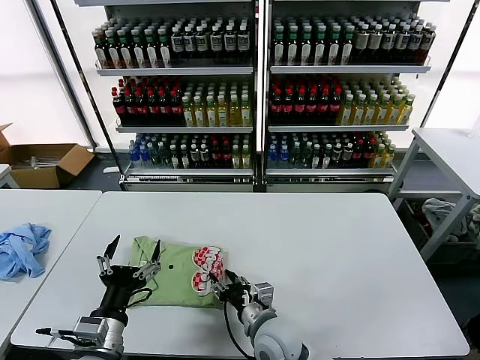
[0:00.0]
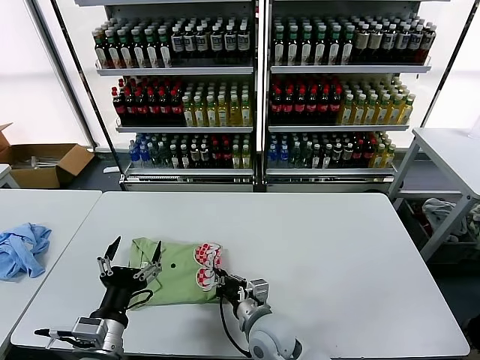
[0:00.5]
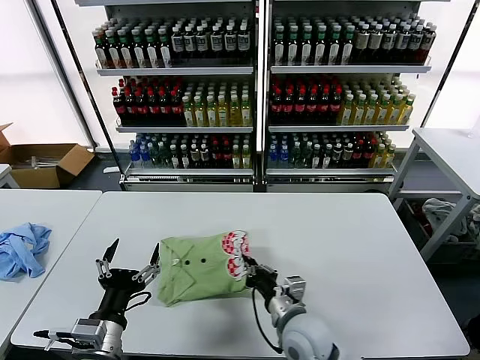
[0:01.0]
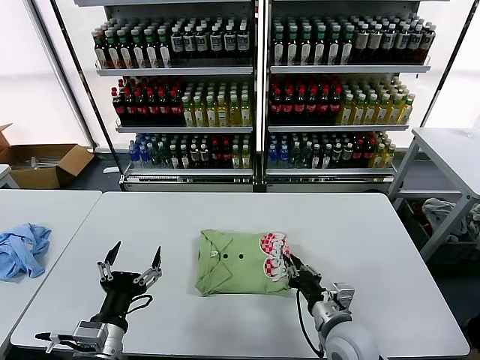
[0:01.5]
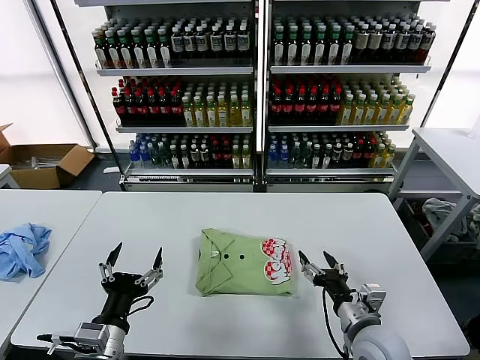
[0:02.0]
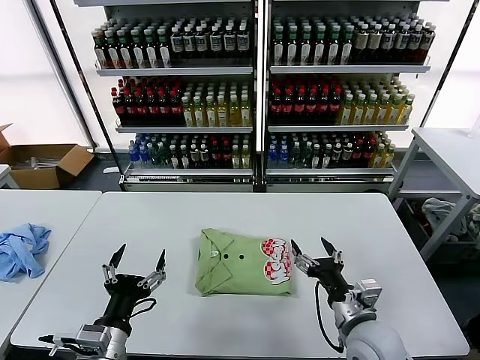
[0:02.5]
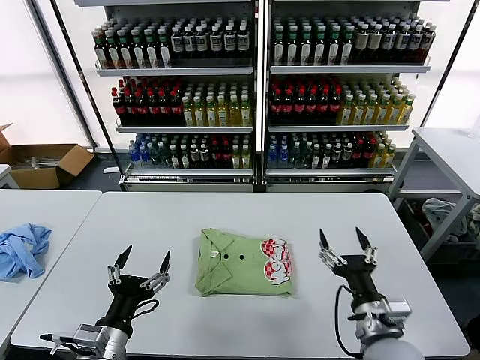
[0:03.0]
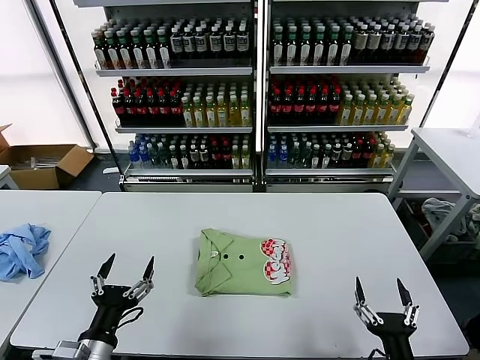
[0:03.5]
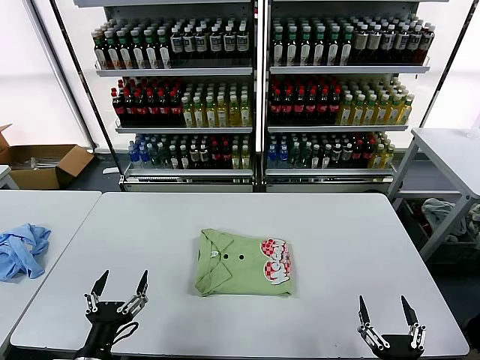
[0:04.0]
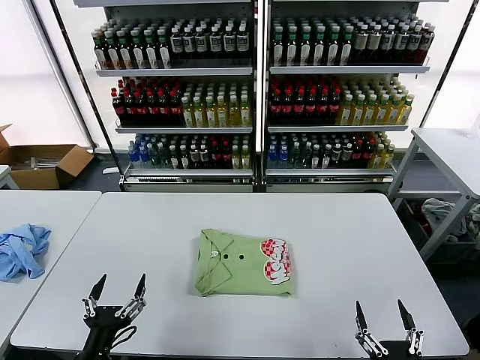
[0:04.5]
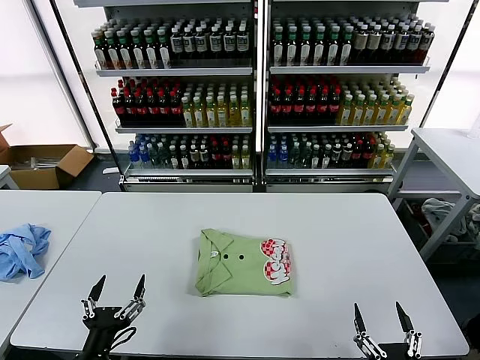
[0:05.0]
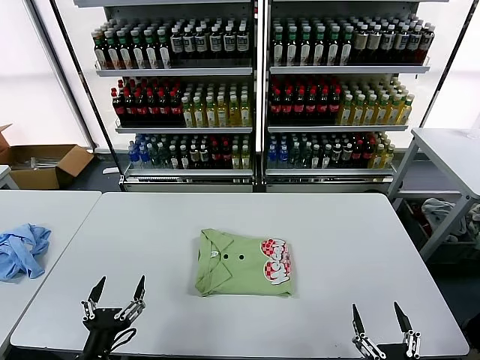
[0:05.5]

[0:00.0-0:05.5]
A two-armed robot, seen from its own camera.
Task of the whole recording: fold and organize the clothes.
0:00.0 to 0:02.0: The right gripper travels to the right by some 20 cm, and closes and opens again.
0:02.0 to 0:03.5: The right gripper moves backward, about 15 cm.
0:03.5 to 0:05.5: The right gripper heads backward, covering roughly 5 cm.

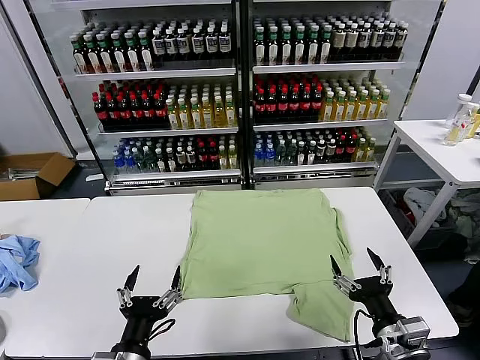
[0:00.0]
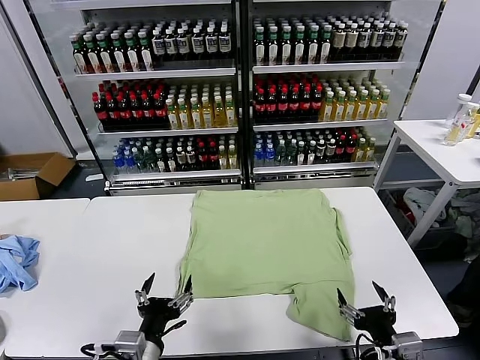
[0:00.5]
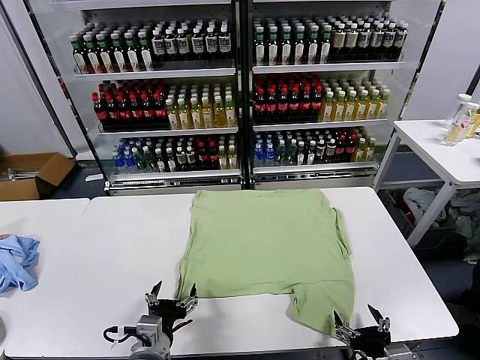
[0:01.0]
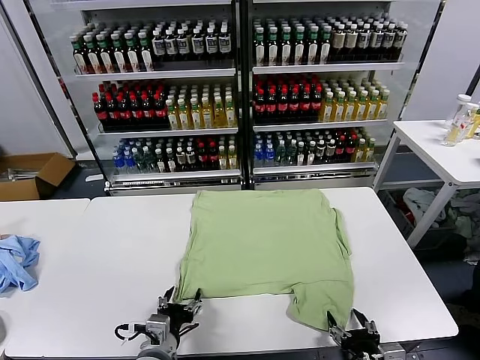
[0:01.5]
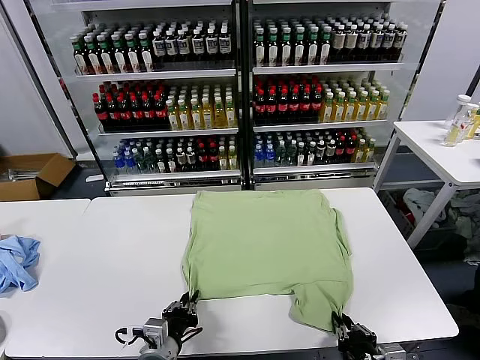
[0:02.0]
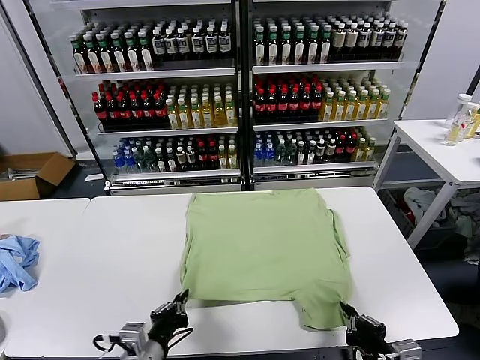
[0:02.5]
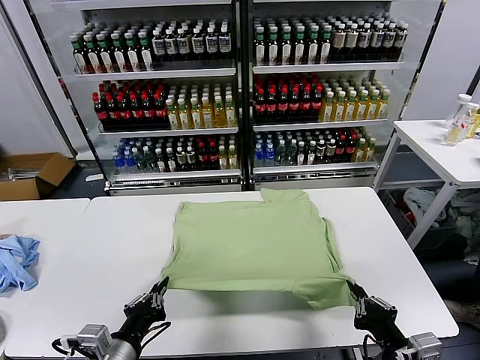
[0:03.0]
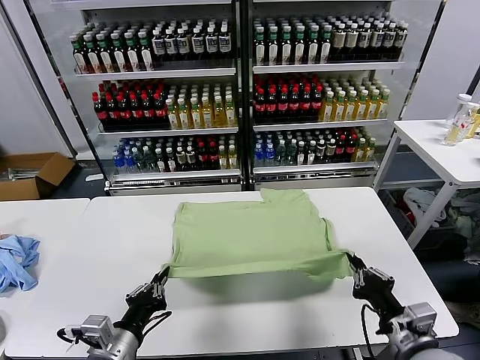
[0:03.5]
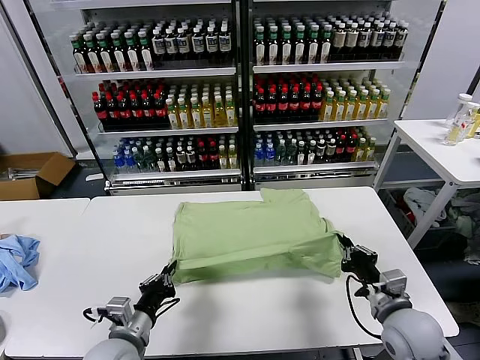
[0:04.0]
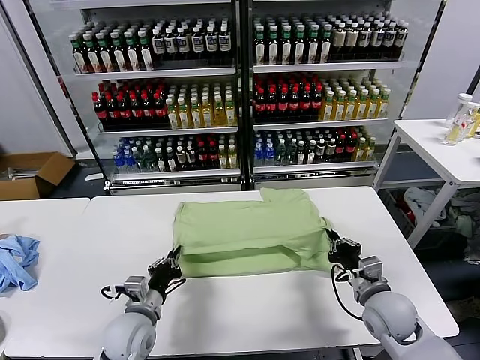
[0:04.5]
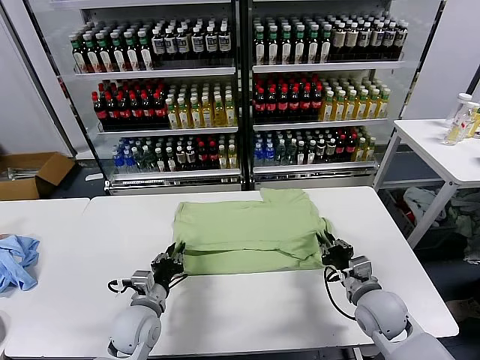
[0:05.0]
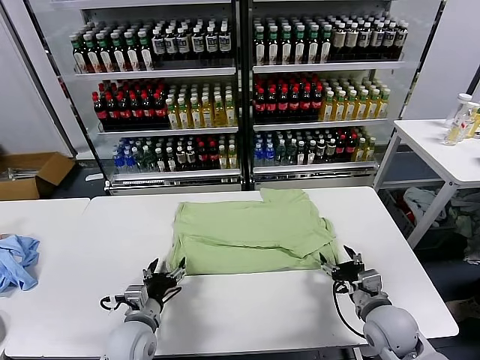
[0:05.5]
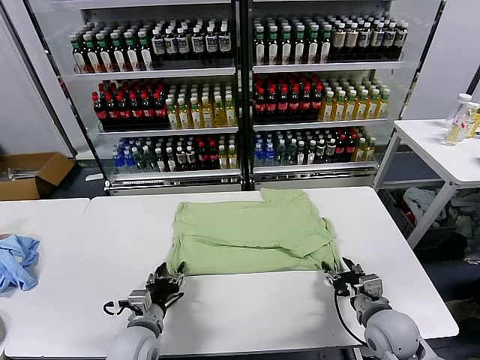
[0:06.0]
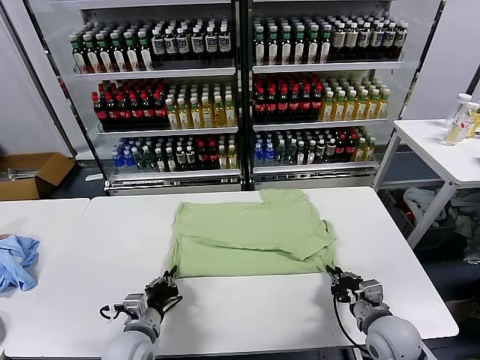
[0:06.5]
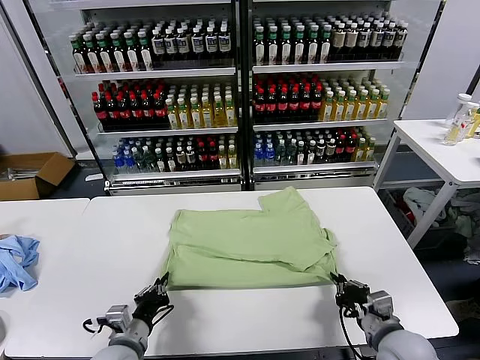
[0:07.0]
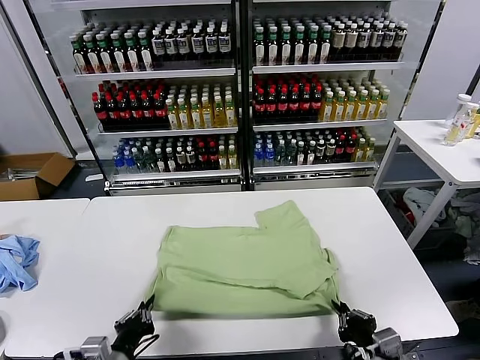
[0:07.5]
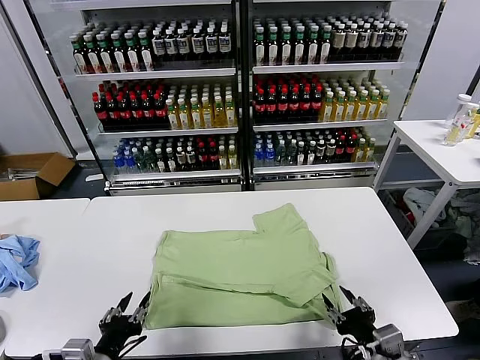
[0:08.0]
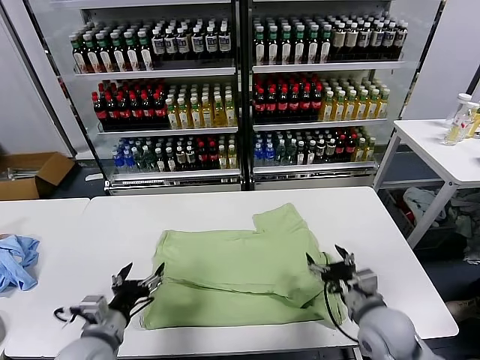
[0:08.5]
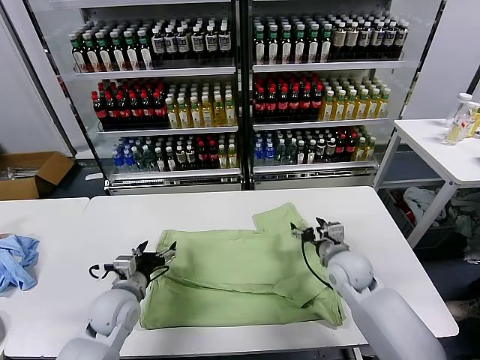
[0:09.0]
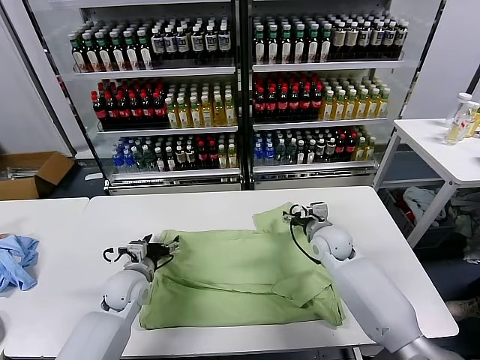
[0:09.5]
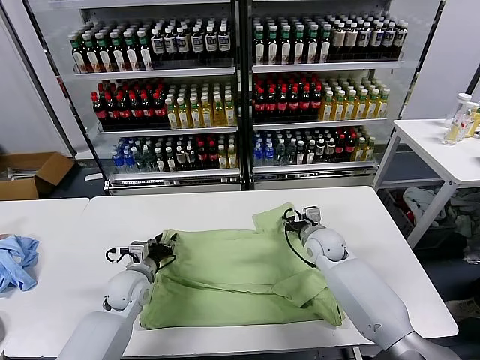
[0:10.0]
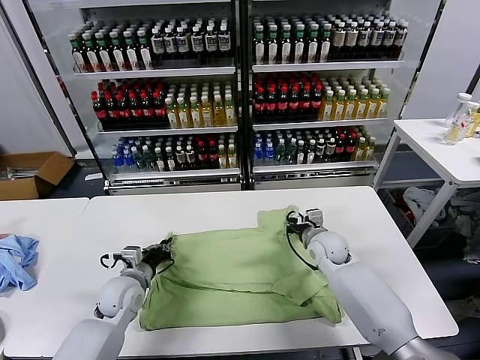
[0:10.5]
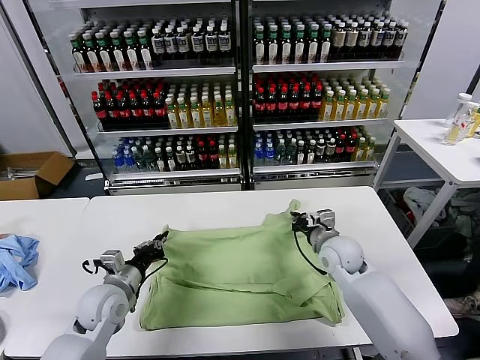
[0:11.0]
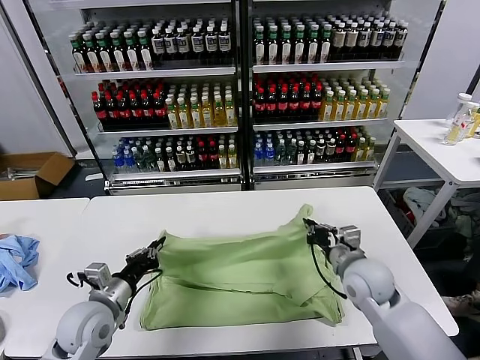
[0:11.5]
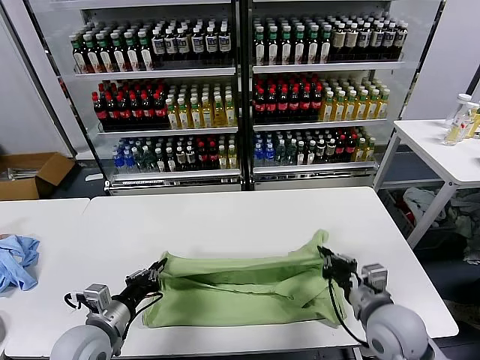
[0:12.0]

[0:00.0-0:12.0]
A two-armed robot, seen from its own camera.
Task of the whole recording: fold and organize the clothes.
Step, 0:00.0 to 0:02.0: use both grippers simultaneously to clamp the lower edge of the clothing fabric.
Step, 0:02.5 to 0:05.0: use both grippers to drag the lower edge of the fabric forward and fold it over the upper edge.
Step, 0:05.5 to 0:07.5: Drag the clothes downward with both gripper.
Step, 0:08.0 to 0:10.5: use both grippers simultaneously to clamp the upper edge of the clothing fabric.
0:02.0 to 0:04.0: The right gripper moves forward, roughly 15 cm, while the left gripper shifts roughly 5 cm to the left, and travels upward and back again, roughly 10 cm each way.
0:04.0 to 0:06.0: The right gripper opens its fingers. The left gripper travels downward by roughly 5 cm, and opens.
0:06.0 to 0:08.0: Both grippers move backward and upward, roughly 15 cm. The left gripper closes, then reopens; the right gripper closes, then reopens.
0:08.0 to 0:10.0: The two grippers go about 30 cm forward. The left gripper opens, then closes once more.
0:10.0 to 0:12.0: The left gripper travels backward and upward by approximately 15 cm, and closes up; the right gripper moves backward, approximately 25 cm, and closes up.

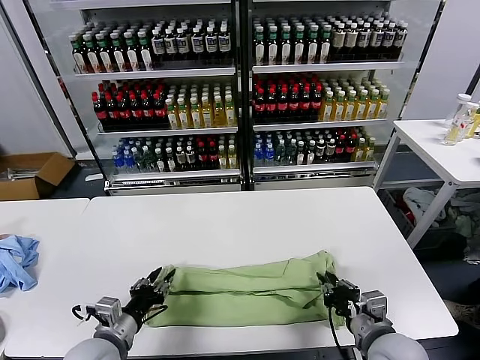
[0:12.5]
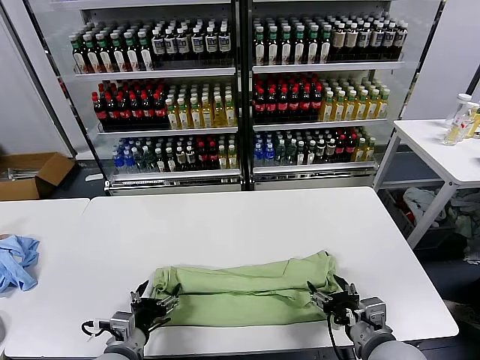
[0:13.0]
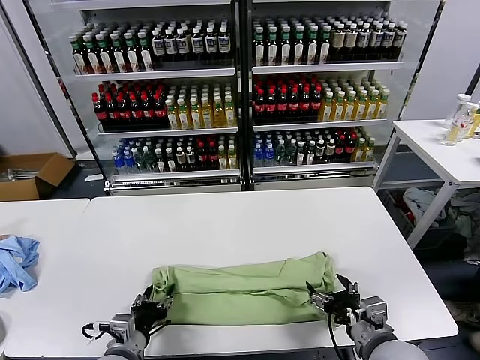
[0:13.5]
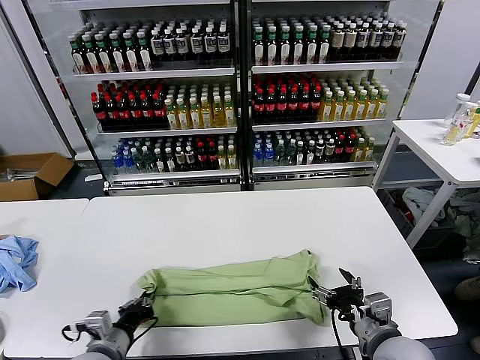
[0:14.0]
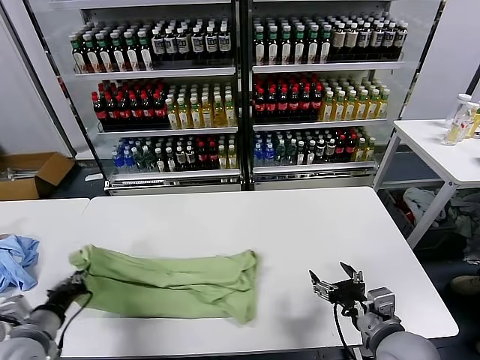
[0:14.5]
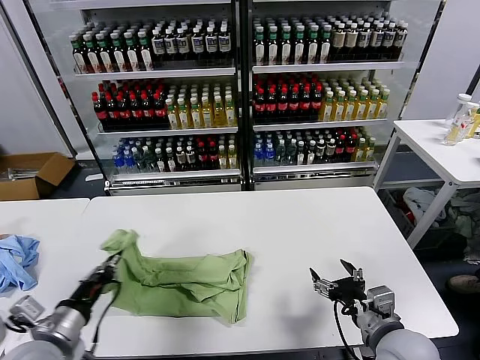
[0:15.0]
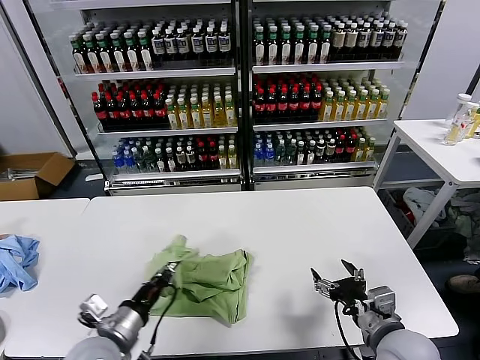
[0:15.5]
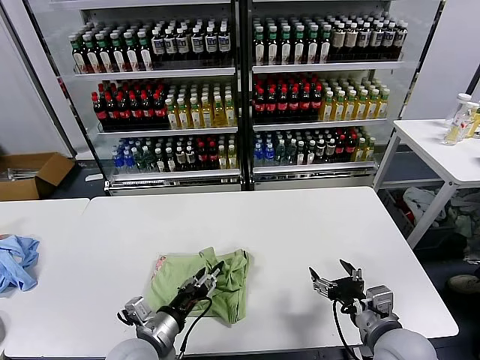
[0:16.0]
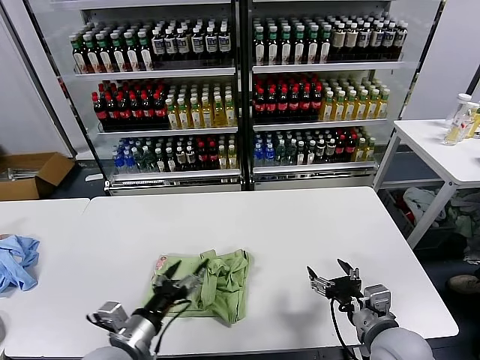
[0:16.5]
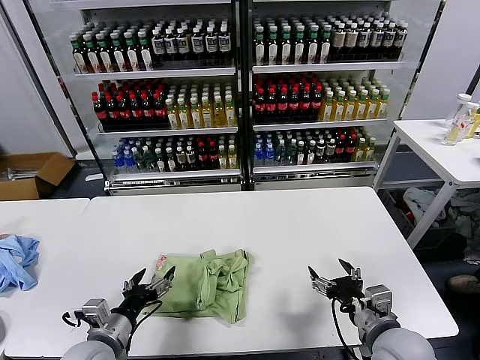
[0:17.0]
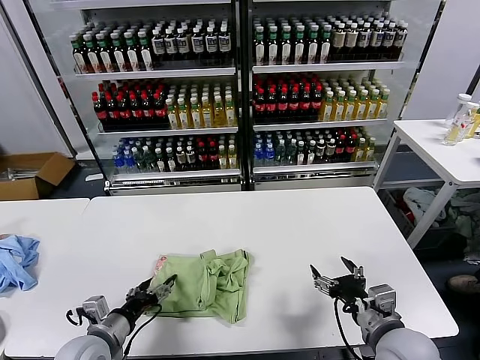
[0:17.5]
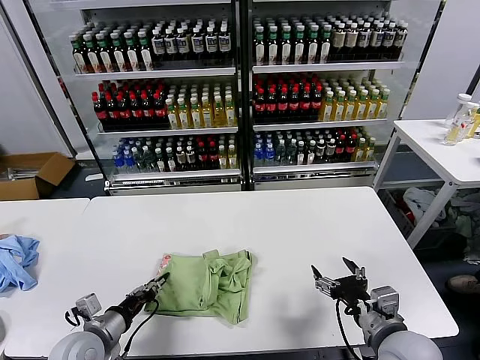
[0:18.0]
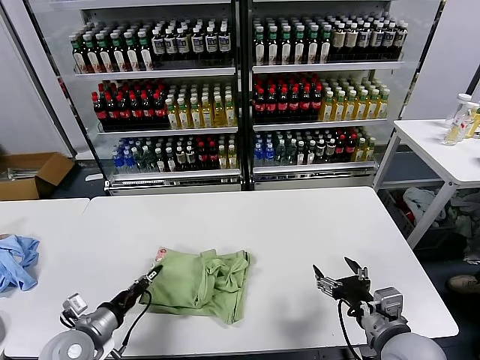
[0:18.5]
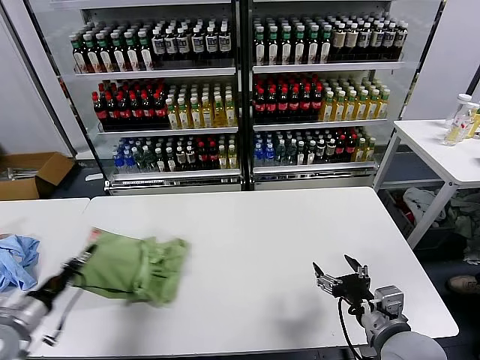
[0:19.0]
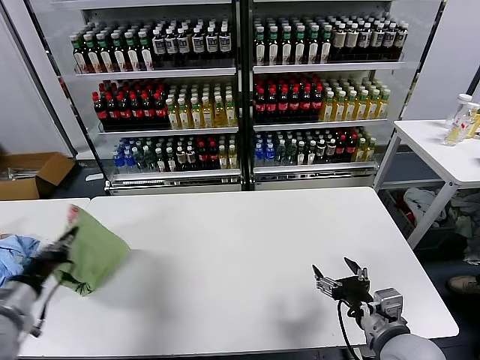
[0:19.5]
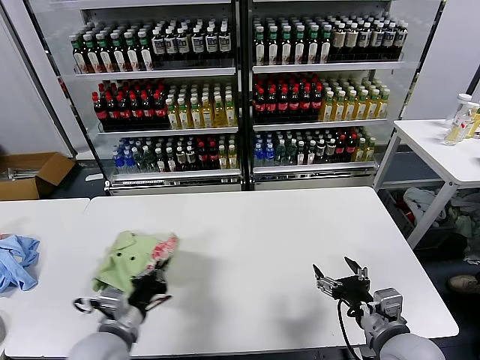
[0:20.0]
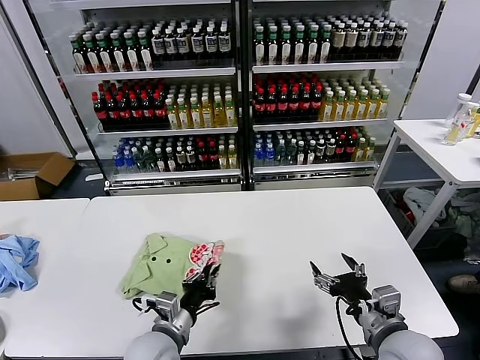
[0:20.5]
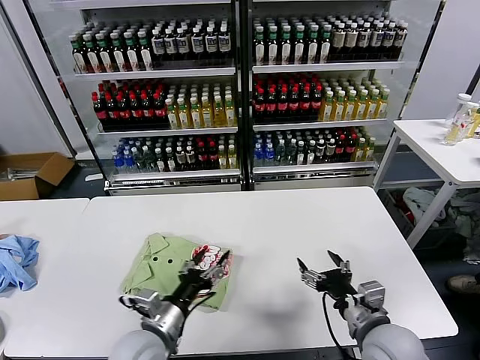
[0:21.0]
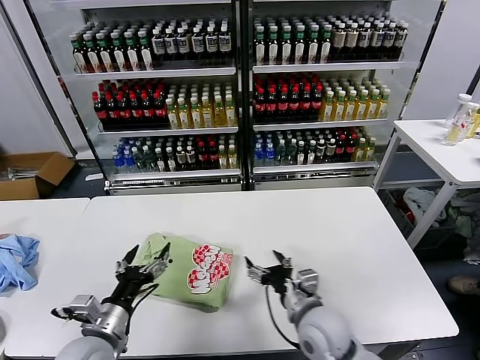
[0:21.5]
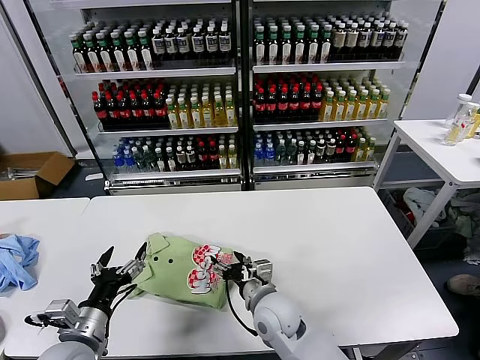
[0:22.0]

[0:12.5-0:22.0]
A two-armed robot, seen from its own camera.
Task of the whole recording: fold and organize the clothes.
Step, 0:13.0 to 0:13.5: use the left gripper to clamp the left edge of the fabric.
Step, 0:14.0 to 0:16.0: use the left gripper to drag the left edge of the fabric to the left and folds it over the right edge.
Step, 0:16.5 to 0:20.5: Flip the folded clothes over with left gripper.
0:12.5 to 0:14.5: The right gripper opens its fingers; the left gripper moves to the left, some 10 cm, and closes.
0:14.5 to 0:16.5: The left gripper goes about 15 cm to the right, and opens.
0:16.5 to 0:18.0: The left gripper travels to the left by approximately 10 cm, and closes its fingers.
0:18.0 to 0:20.0: The left gripper goes about 5 cm upward, moves approximately 10 cm to the left and comes back, and closes its fingers.
0:20.0 to 0:22.0: The left gripper reaches about 10 cm to the right, then returns, and opens. The right gripper travels to the left and forward by roughly 25 cm.
